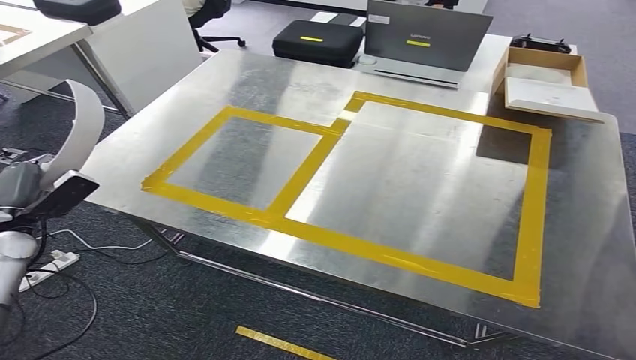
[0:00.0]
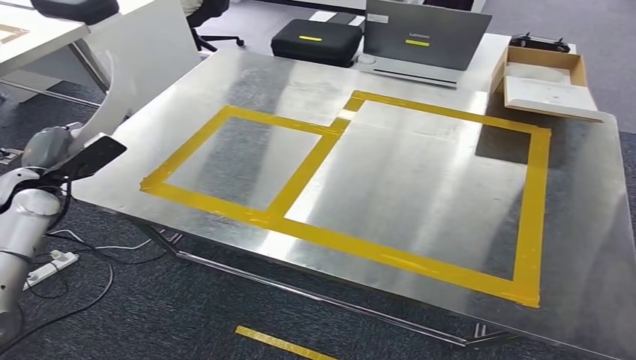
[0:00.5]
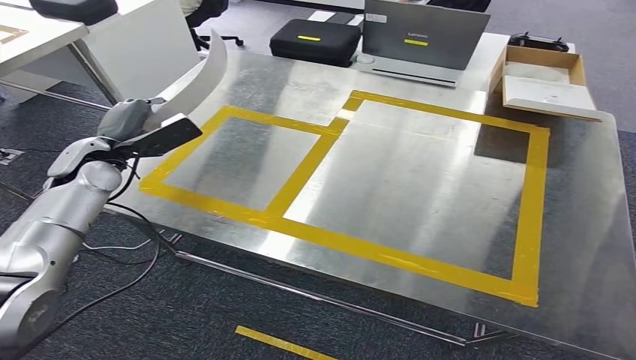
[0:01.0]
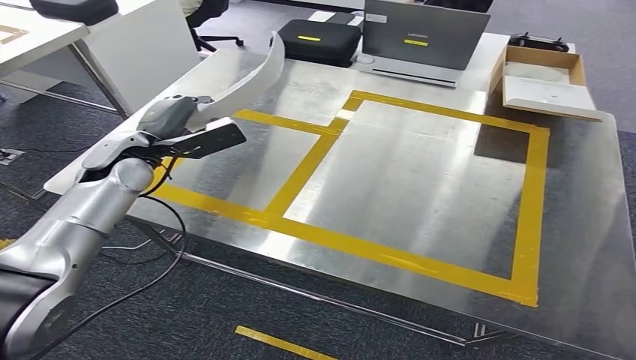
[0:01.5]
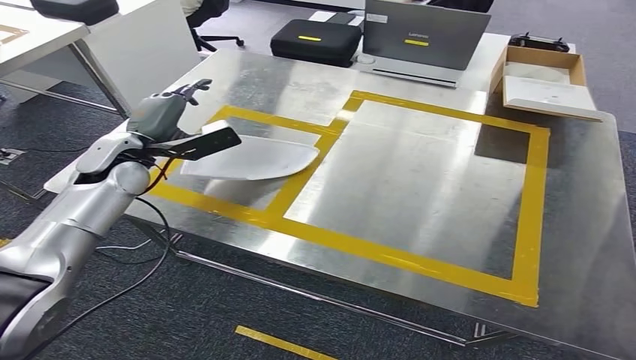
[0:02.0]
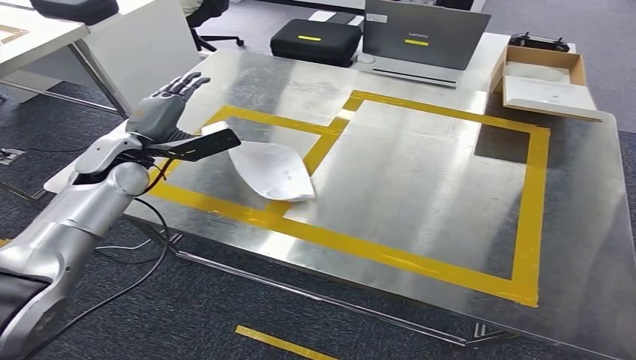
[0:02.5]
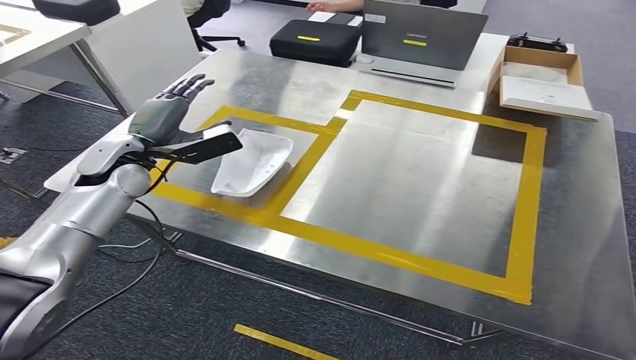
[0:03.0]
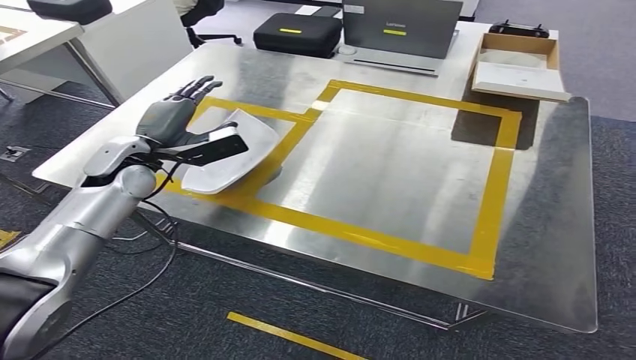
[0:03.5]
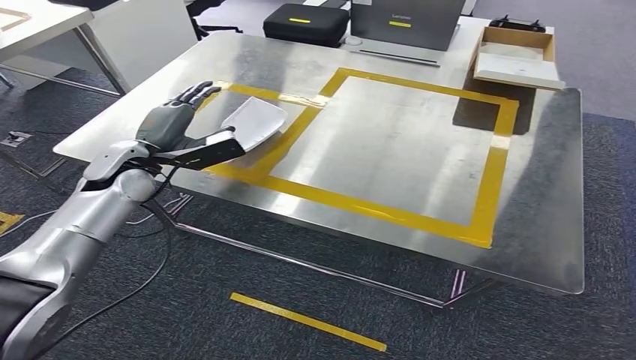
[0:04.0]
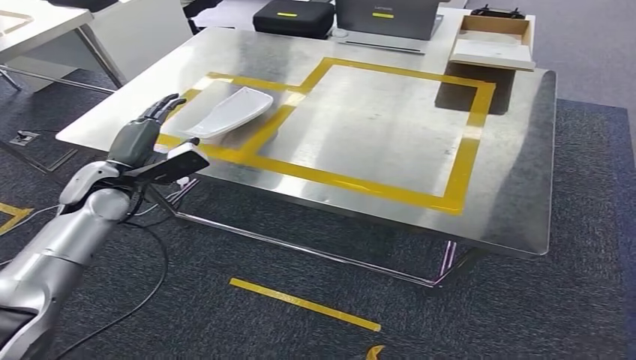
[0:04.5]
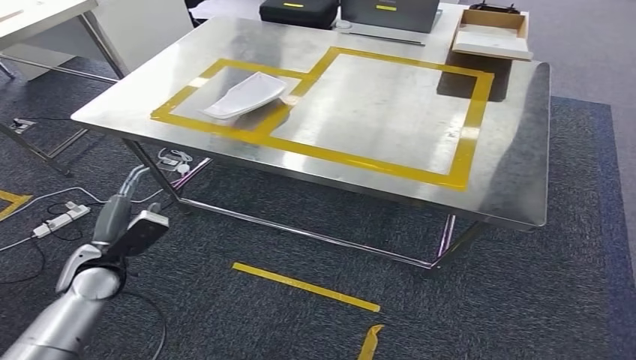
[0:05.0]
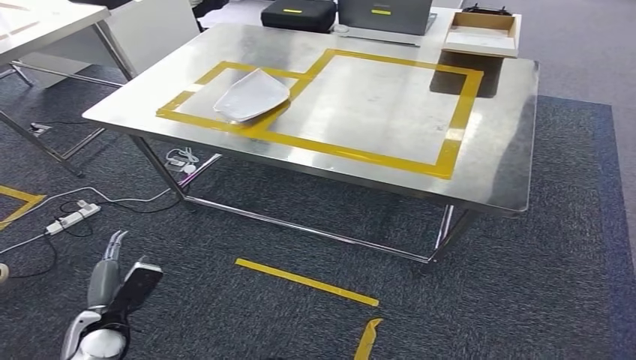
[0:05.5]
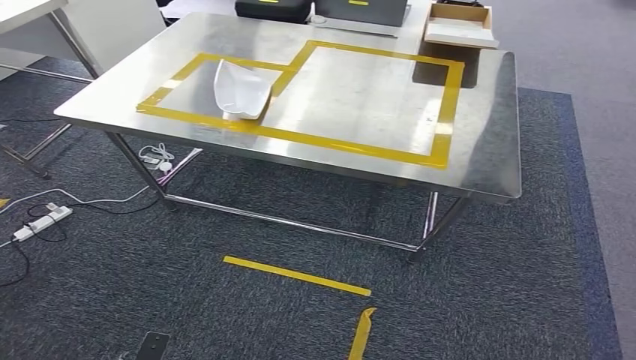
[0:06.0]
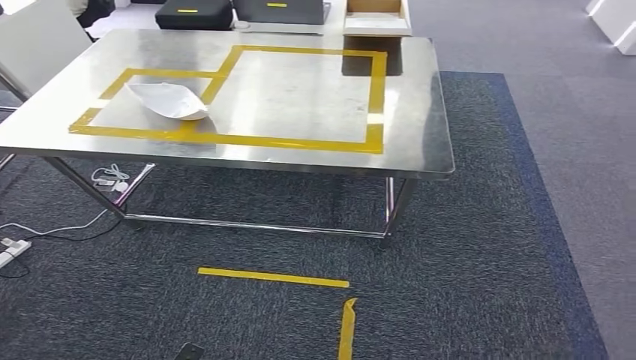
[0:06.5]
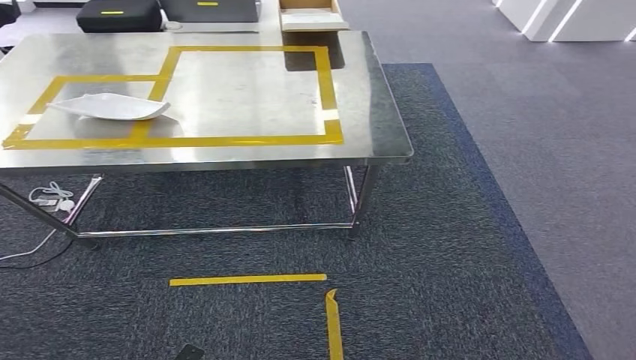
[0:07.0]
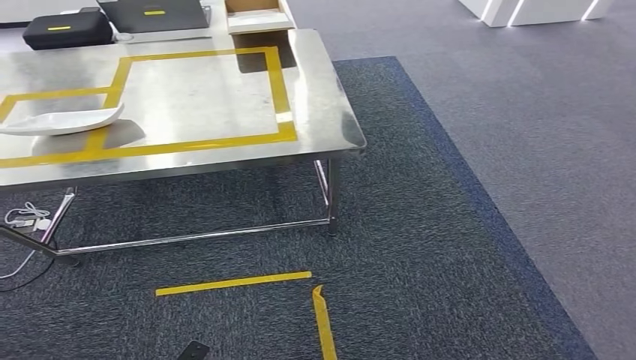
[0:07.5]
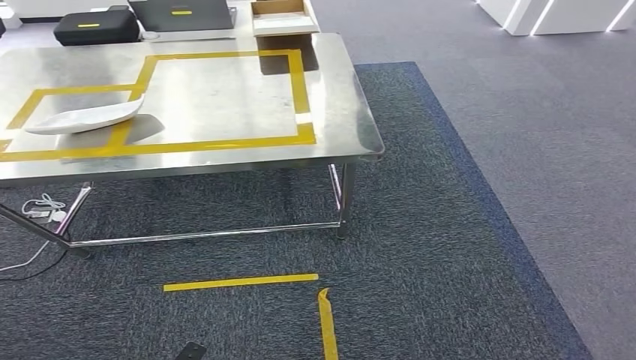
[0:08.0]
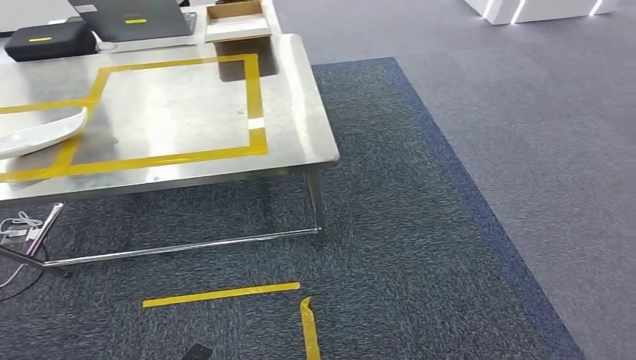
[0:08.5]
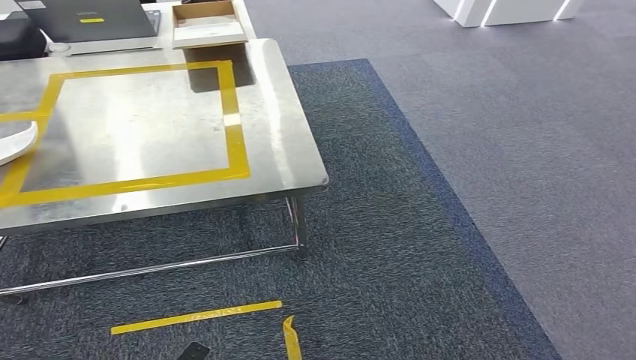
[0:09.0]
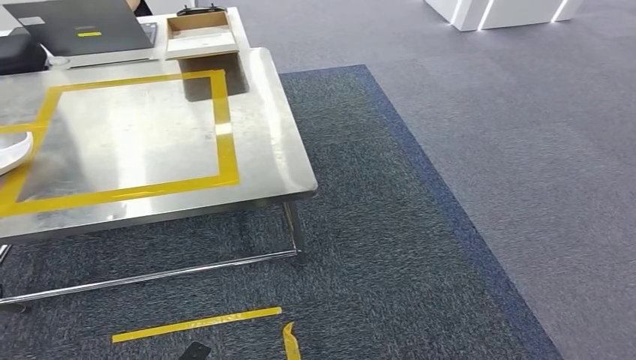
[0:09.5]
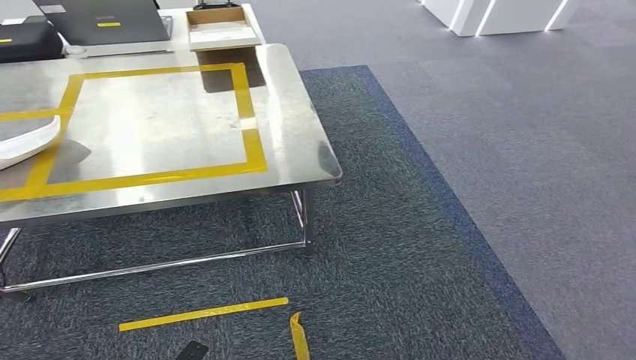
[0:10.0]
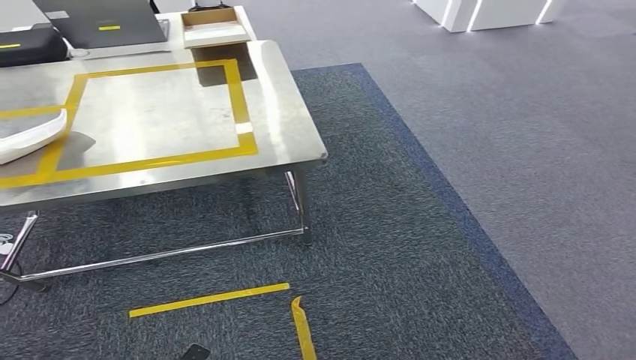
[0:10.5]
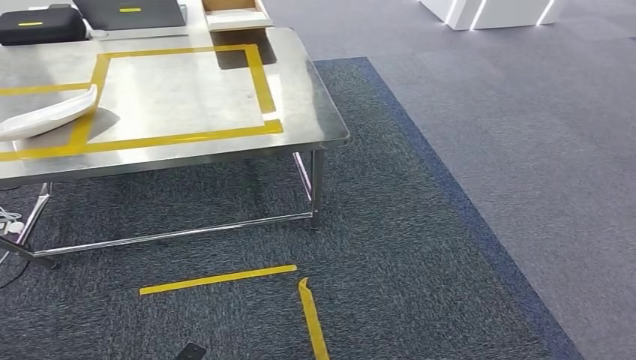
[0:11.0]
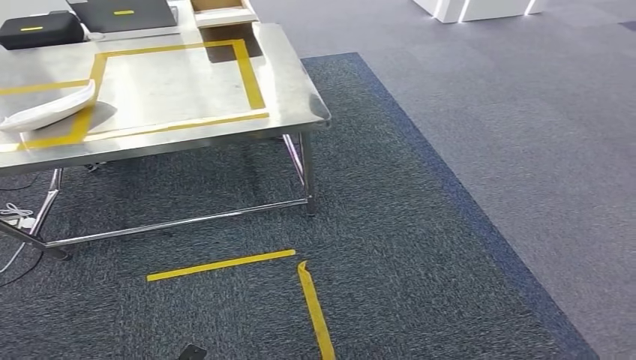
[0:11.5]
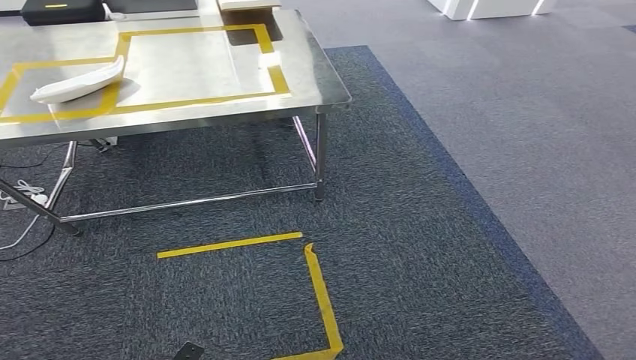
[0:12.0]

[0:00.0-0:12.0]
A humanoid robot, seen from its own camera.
Step, 0:00.0 to 0:05.5: Insert the small parts into the corresponding holes on the workbench.
0:00.0 to 0:02.0: The left hand travels to the right, forward and upward by roughly 25 cm.

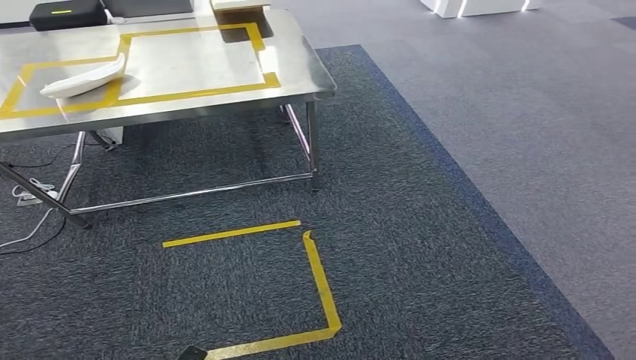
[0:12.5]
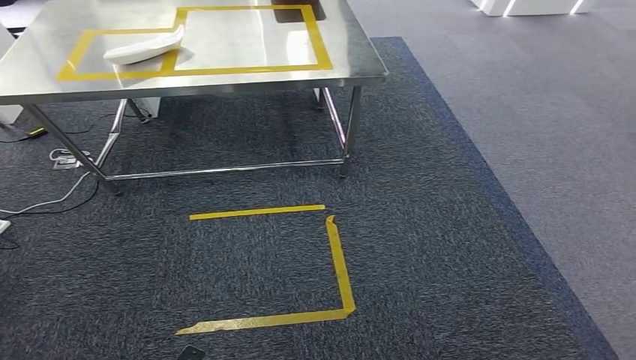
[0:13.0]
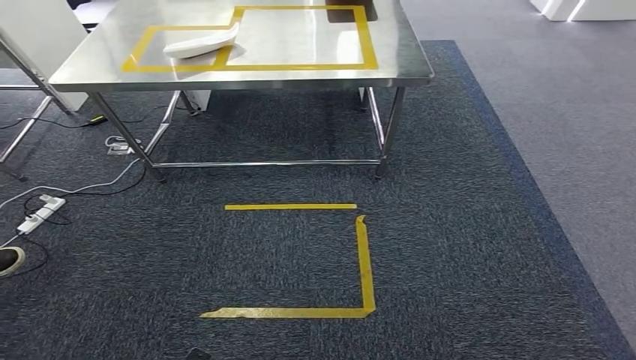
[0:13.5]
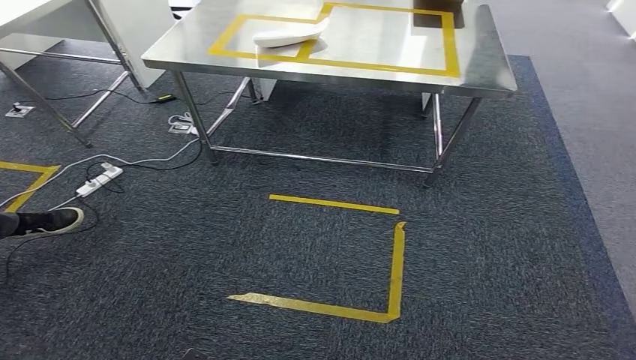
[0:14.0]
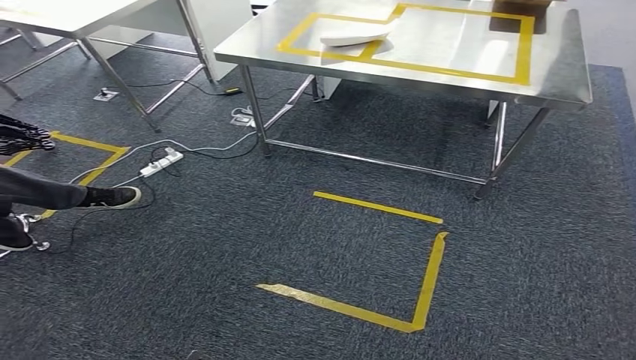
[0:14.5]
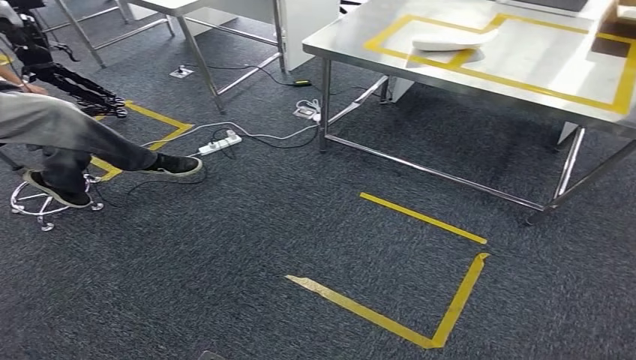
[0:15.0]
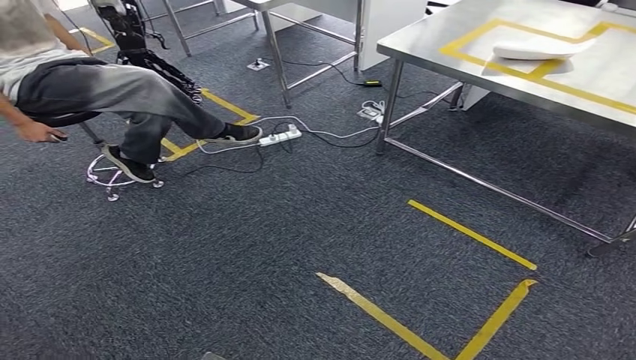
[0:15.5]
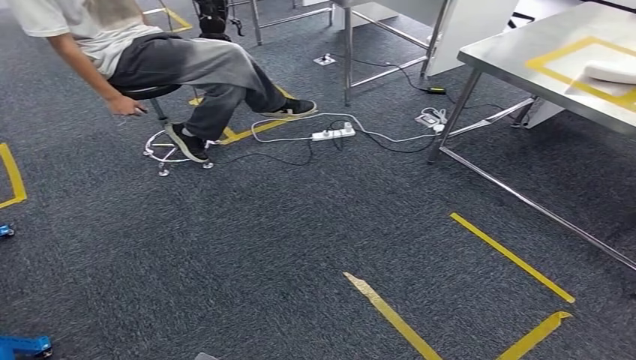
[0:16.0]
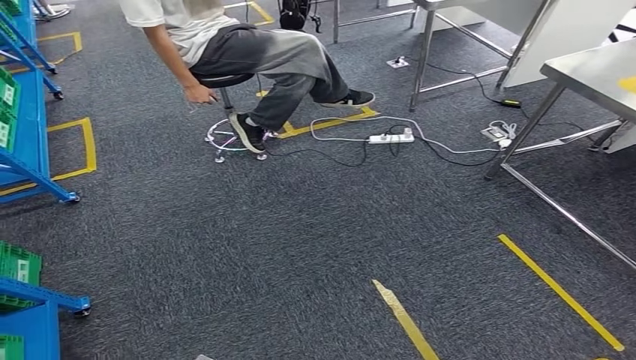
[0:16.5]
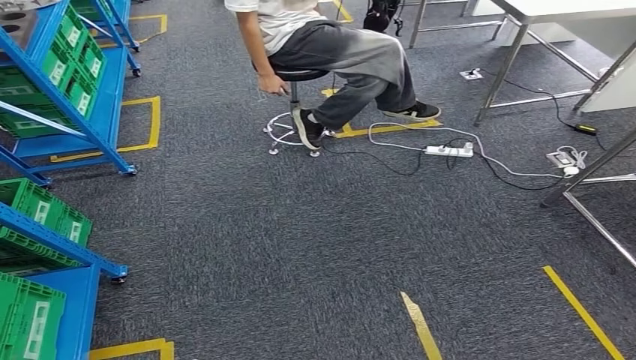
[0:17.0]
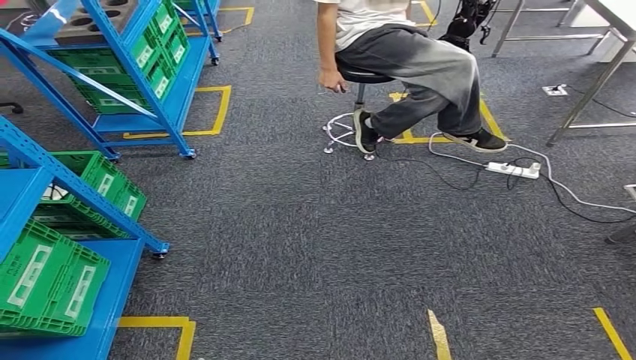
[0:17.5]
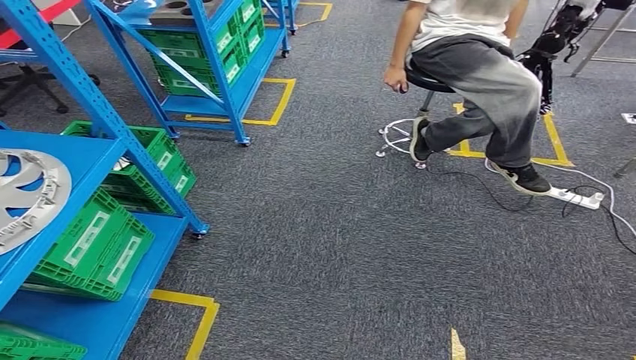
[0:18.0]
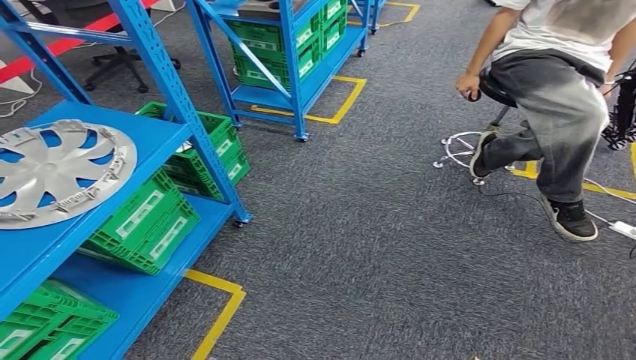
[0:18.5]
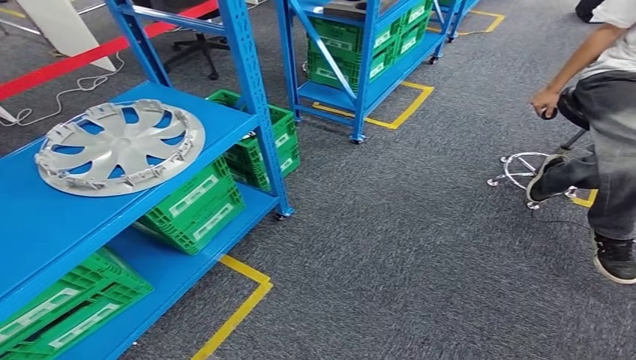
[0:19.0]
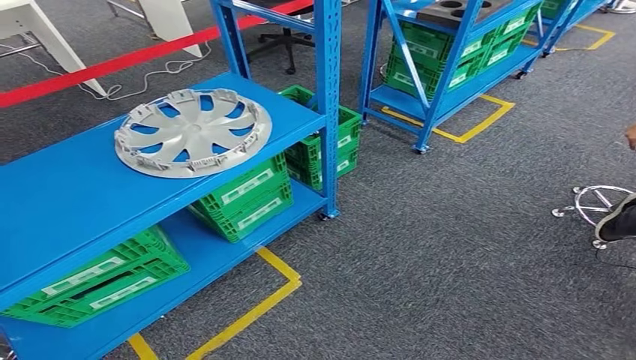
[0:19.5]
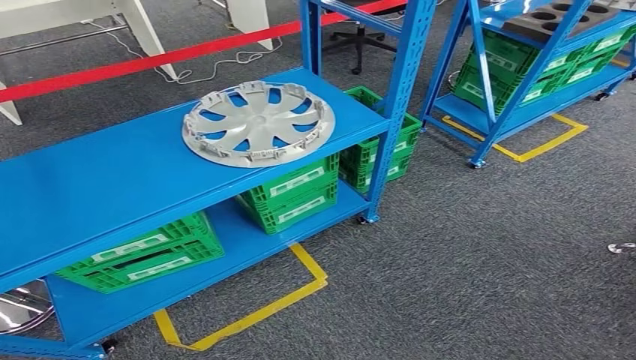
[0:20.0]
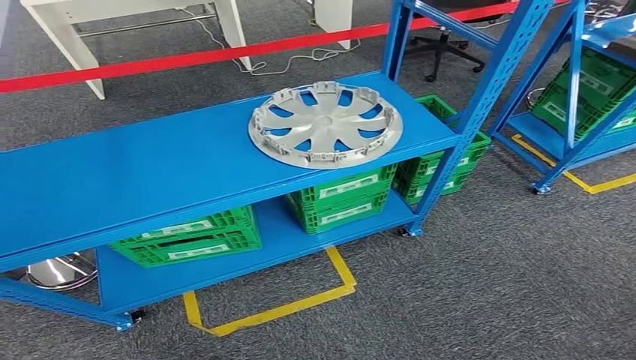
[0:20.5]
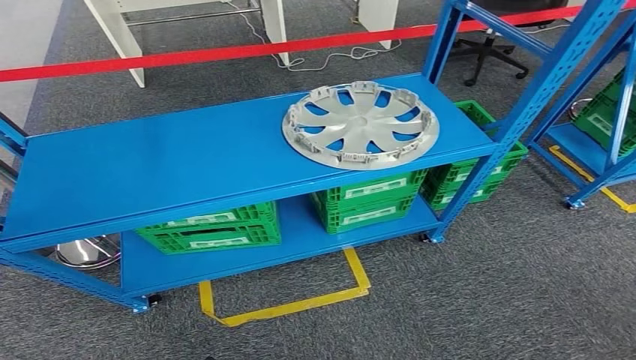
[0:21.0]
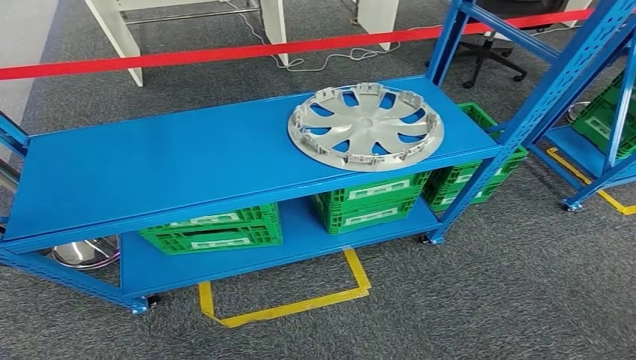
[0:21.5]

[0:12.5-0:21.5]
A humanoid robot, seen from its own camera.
Step, 0:12.5 to 0:21.5: Move to the initial position at the workbench.
